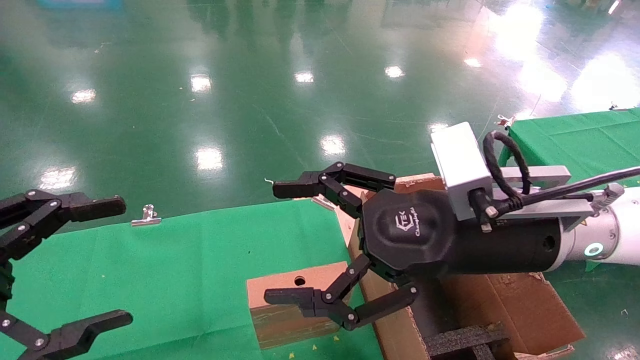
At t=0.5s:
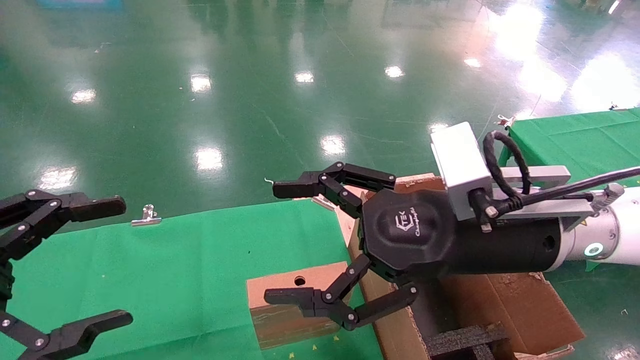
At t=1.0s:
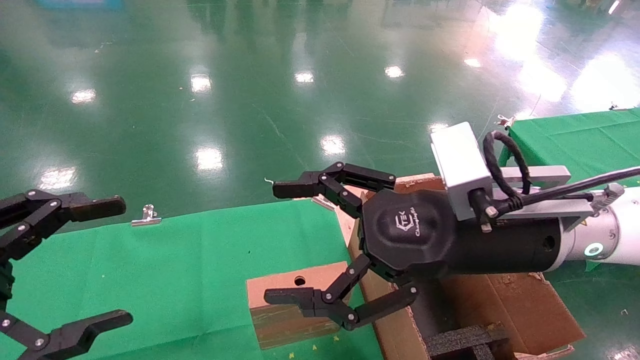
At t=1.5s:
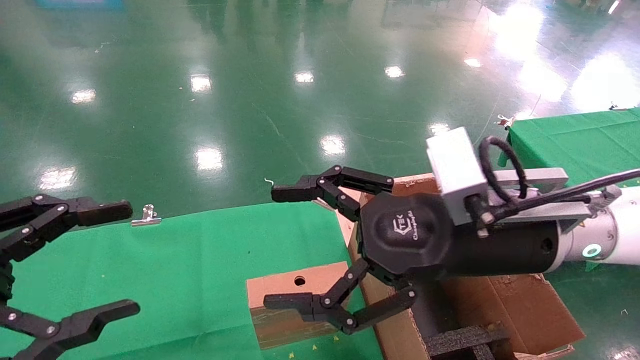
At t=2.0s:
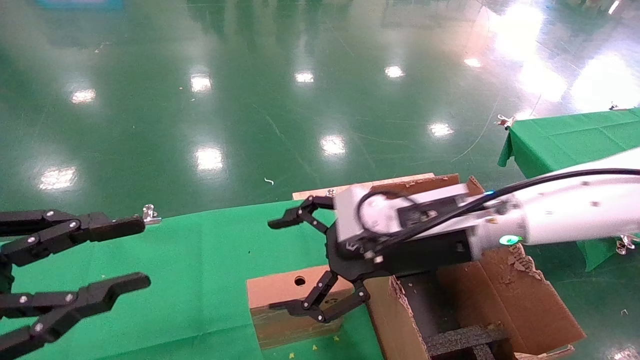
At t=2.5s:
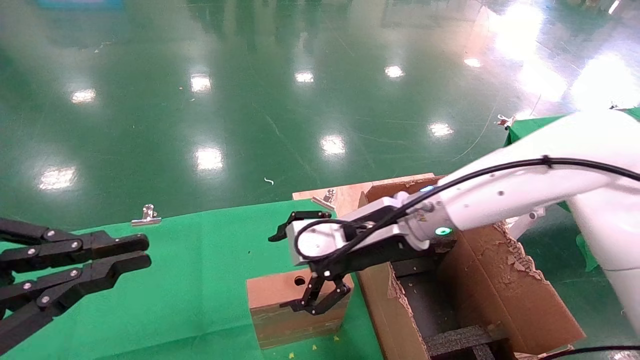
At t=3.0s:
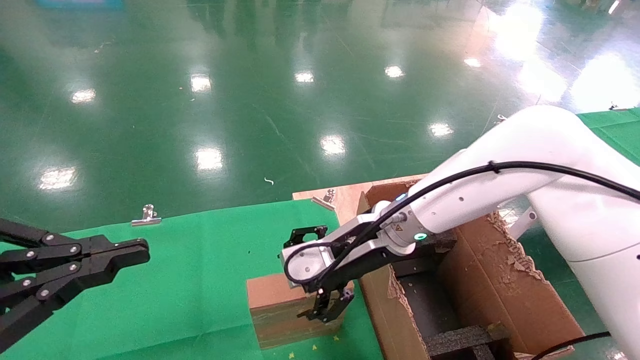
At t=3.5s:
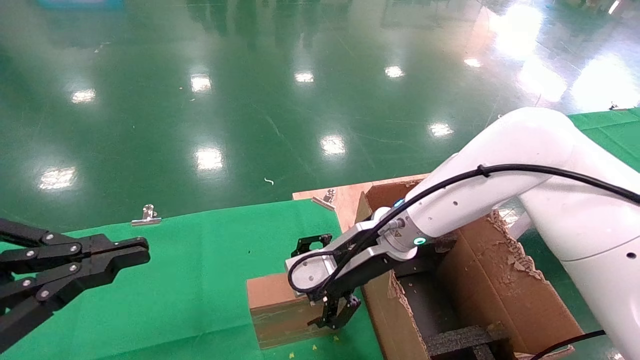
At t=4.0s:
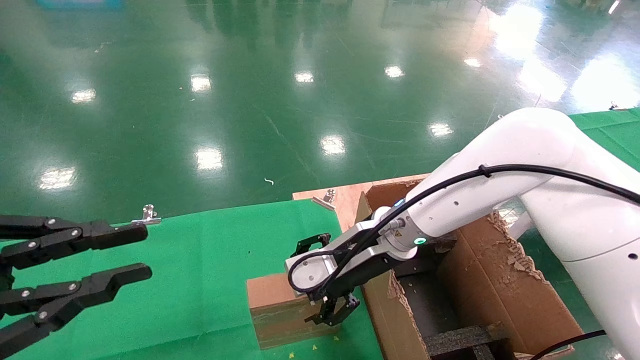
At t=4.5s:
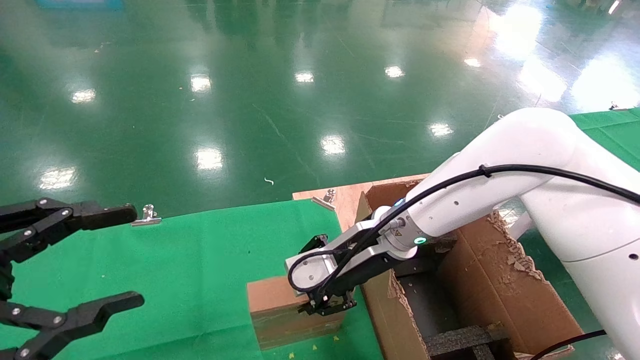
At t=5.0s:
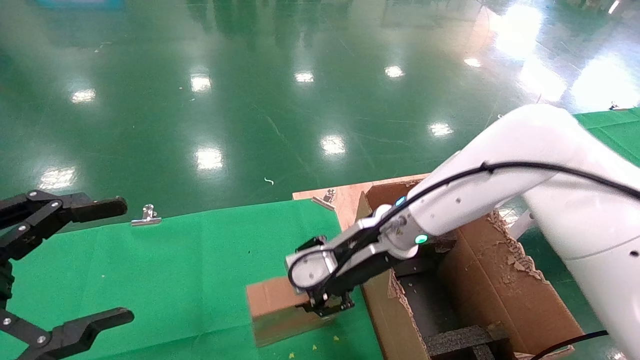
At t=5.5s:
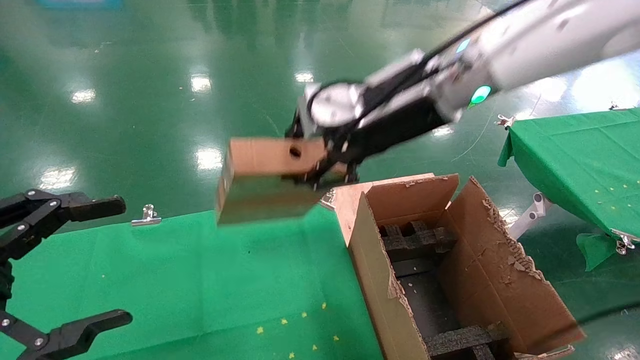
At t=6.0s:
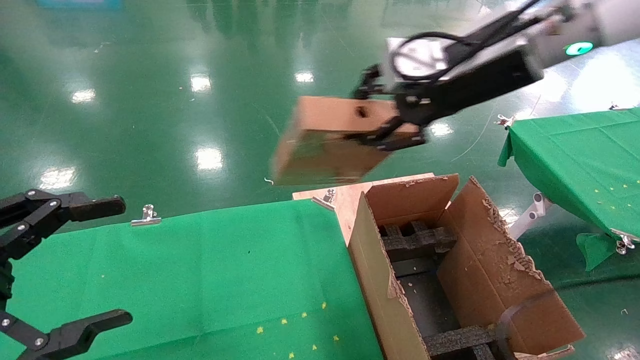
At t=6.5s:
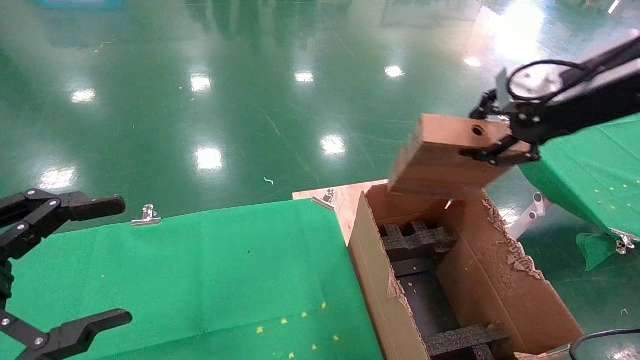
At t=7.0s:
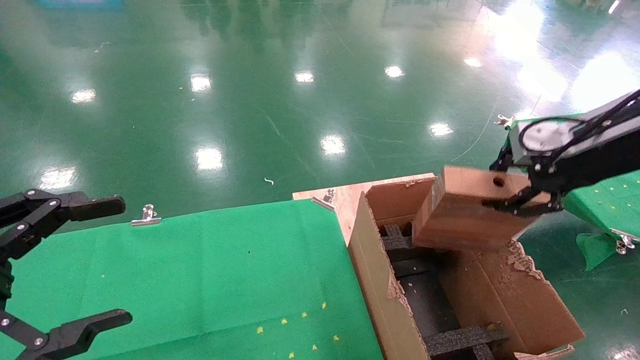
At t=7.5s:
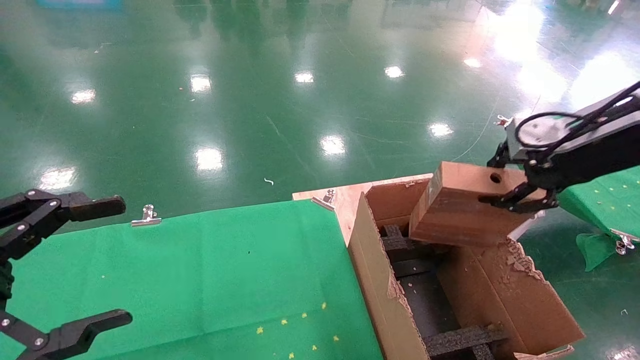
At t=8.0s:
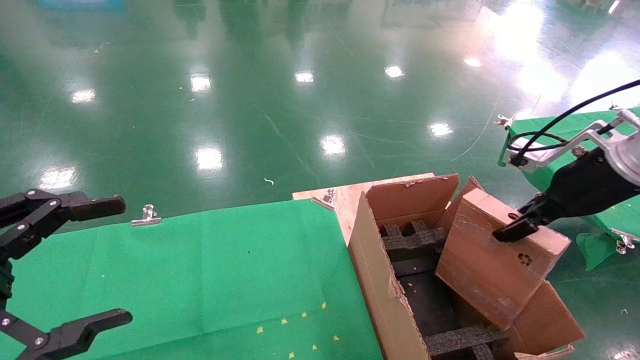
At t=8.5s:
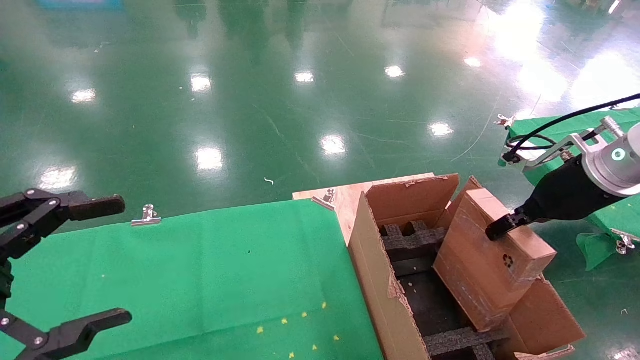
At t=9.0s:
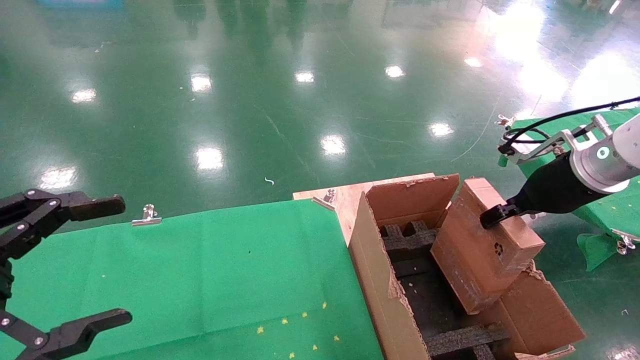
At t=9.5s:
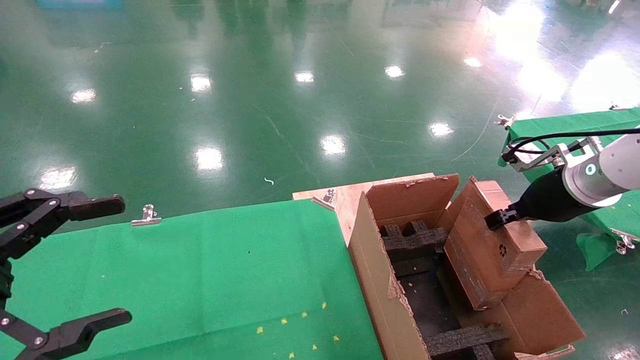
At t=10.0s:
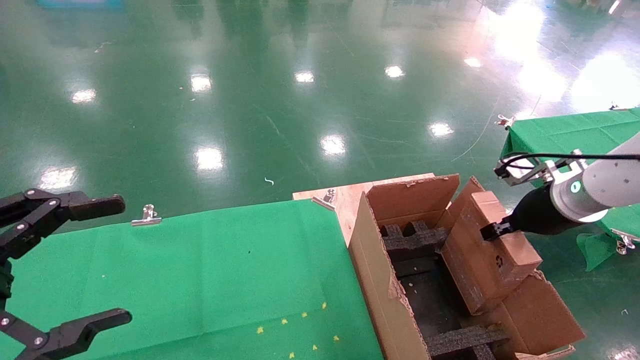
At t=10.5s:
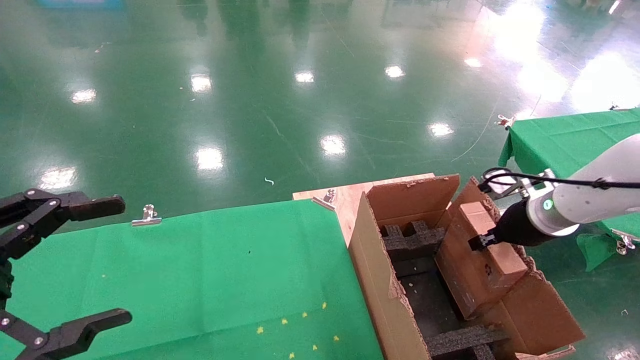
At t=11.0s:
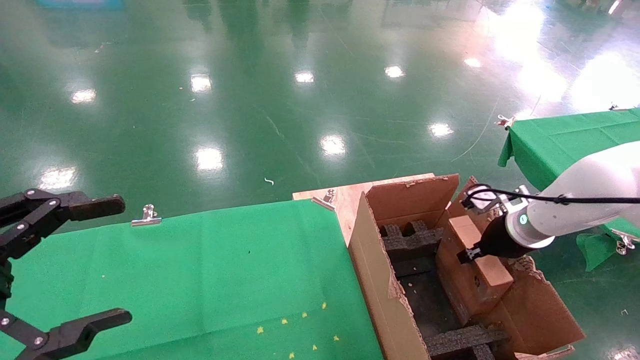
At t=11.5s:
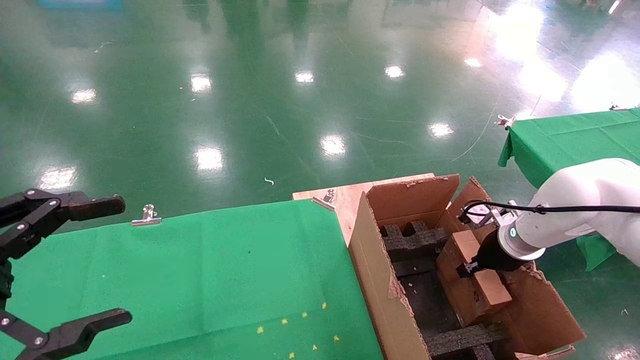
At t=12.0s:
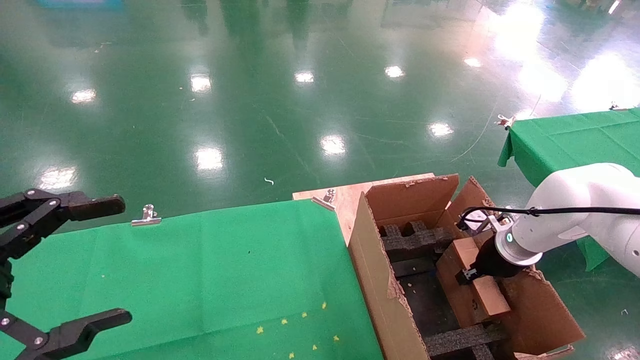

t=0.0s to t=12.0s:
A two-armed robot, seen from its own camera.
Task of the whole recording: using a robotic arm to pick up a cardboard box and palace it the carton.
Step, t=1.5s to t=4.5s: Pick up the mouse and the power cord paper box.
t=0.0s to t=2.0s: The left gripper closes up. Meanwhile the right gripper is displaced forward by about 5 cm.
t=2.0s to t=4.0s: The left gripper closes its fingers; the right gripper moves forward, some 5 cm.
t=4.0s to t=6.0s: The left gripper opens. Meanwhile the right gripper is displaced upward and to the right by about 25 cm, and closes its fingers.
t=6.0s to t=8.0s: The right gripper is displaced to the right and downward by approximately 20 cm.
t=8.0s to t=10.0s: The right gripper travels downward by about 5 cm.
t=10.0s to t=12.0s: The right gripper is displaced downward and forward by some 15 cm.

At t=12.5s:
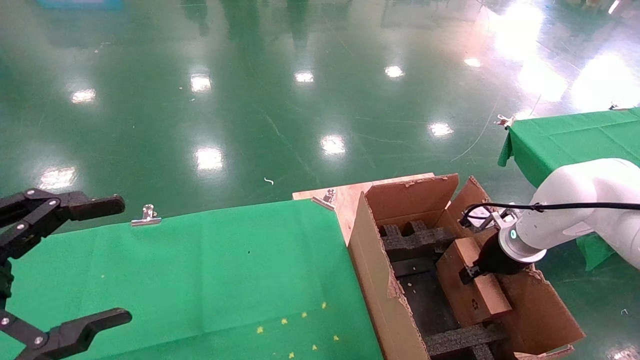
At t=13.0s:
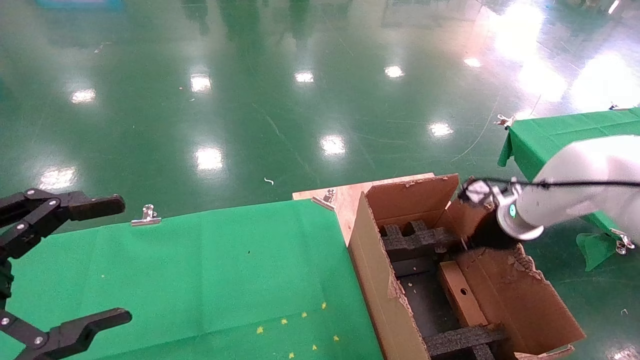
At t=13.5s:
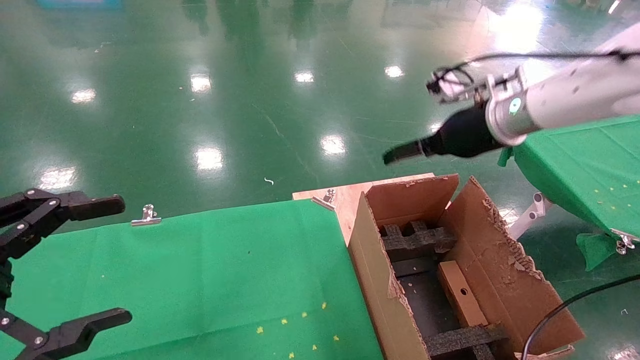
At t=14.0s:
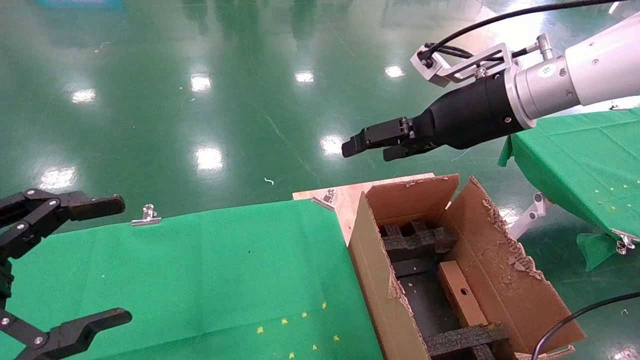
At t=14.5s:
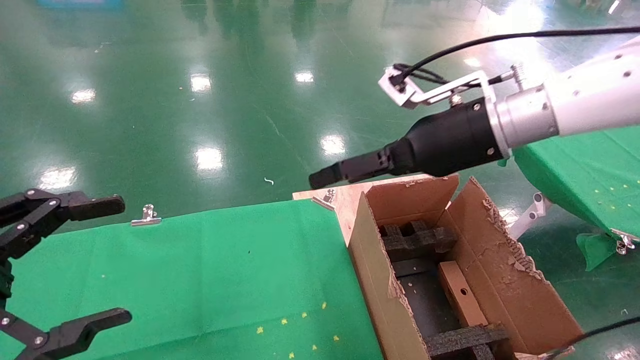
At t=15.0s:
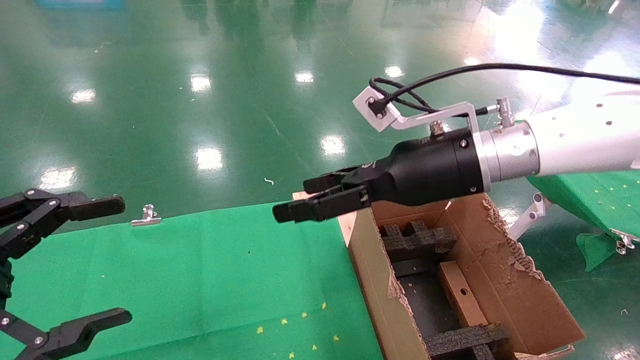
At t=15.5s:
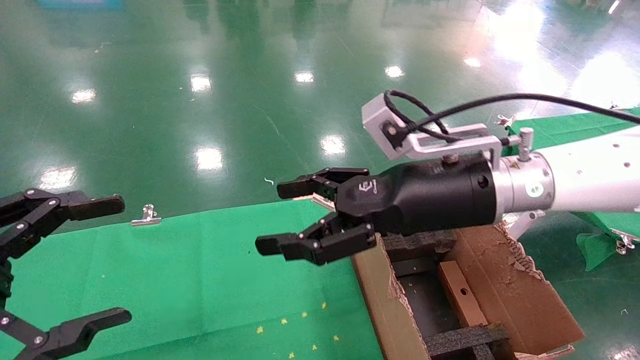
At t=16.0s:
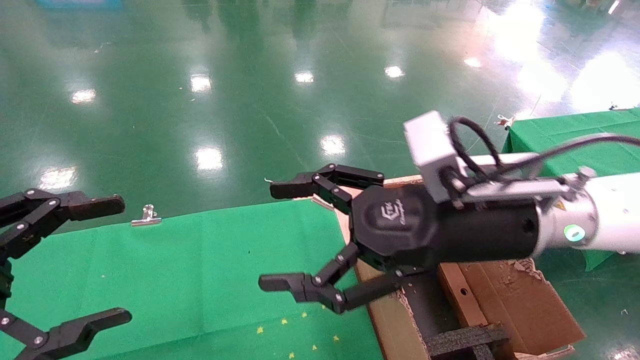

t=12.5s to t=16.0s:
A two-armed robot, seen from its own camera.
Task of the whole recording: using a robotic arm to pick up a cardboard box and palace it the carton.
t=12.5s to t=14.5s: The right gripper goes some 25 cm upward and to the left, and opens up.
t=14.5s to t=16.0s: The right gripper moves backward and downward, approximately 10 cm.
